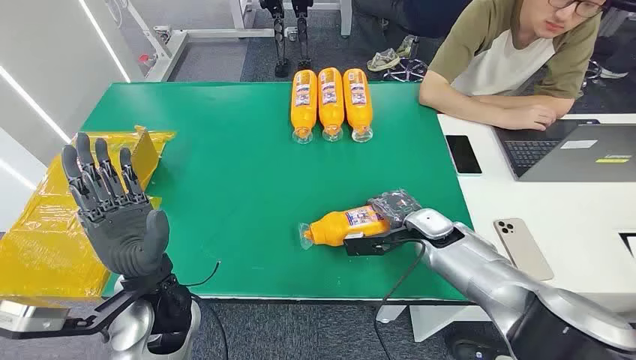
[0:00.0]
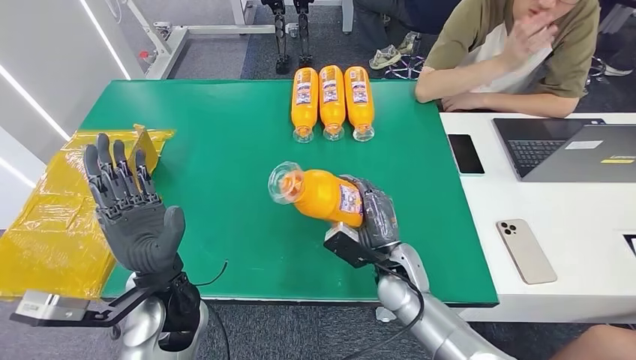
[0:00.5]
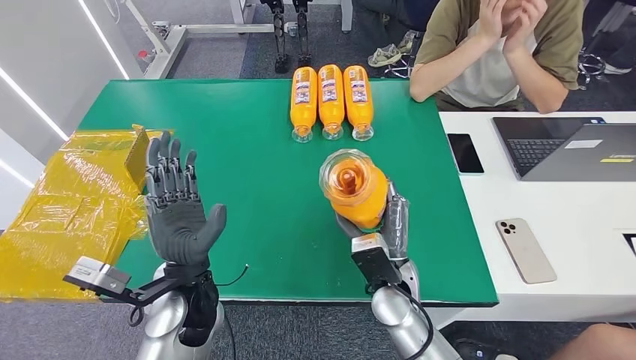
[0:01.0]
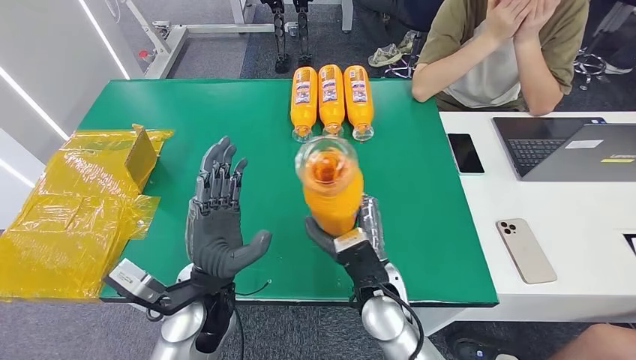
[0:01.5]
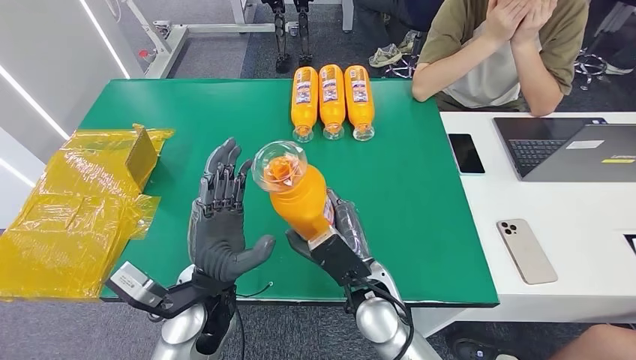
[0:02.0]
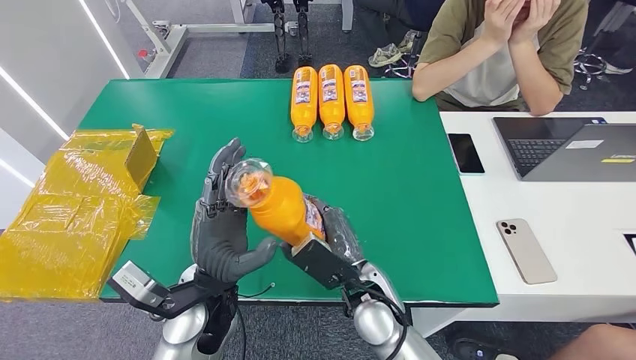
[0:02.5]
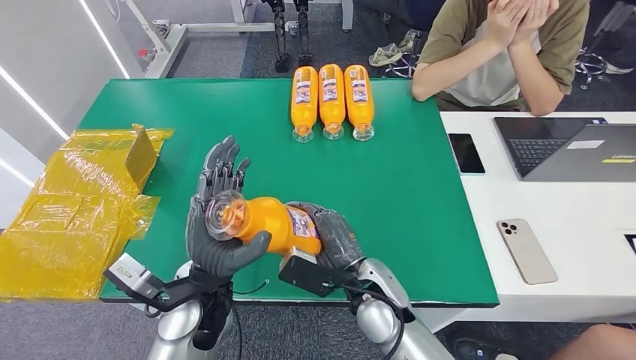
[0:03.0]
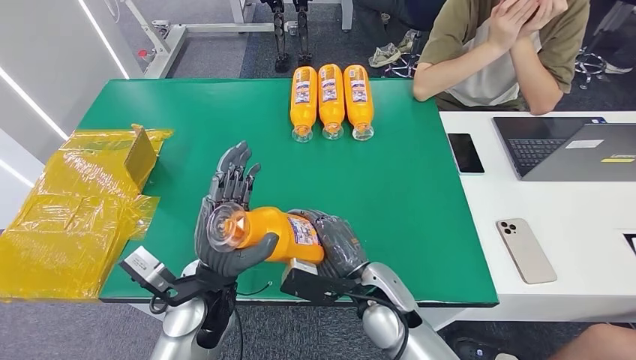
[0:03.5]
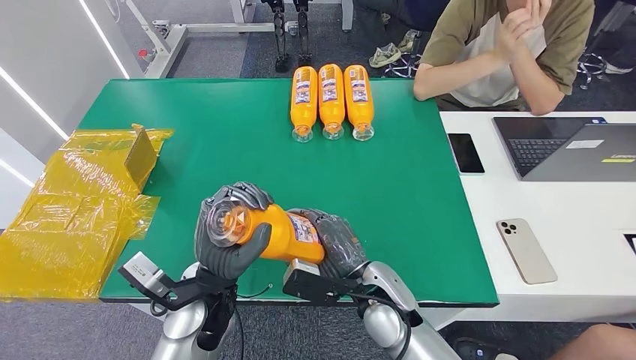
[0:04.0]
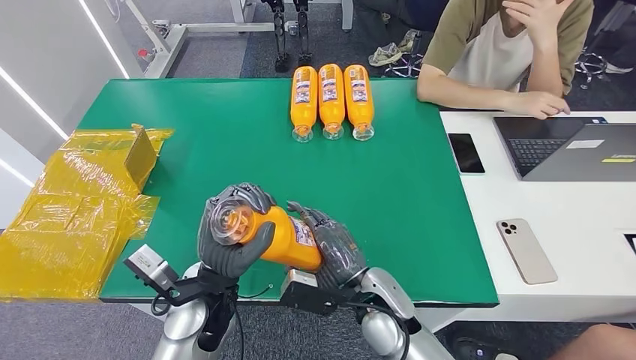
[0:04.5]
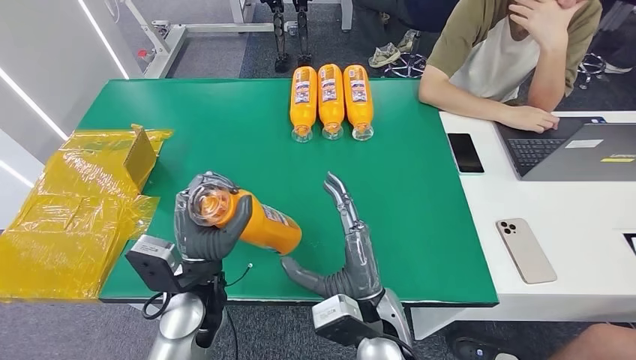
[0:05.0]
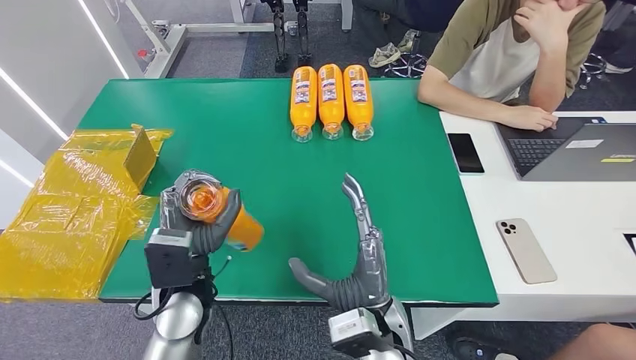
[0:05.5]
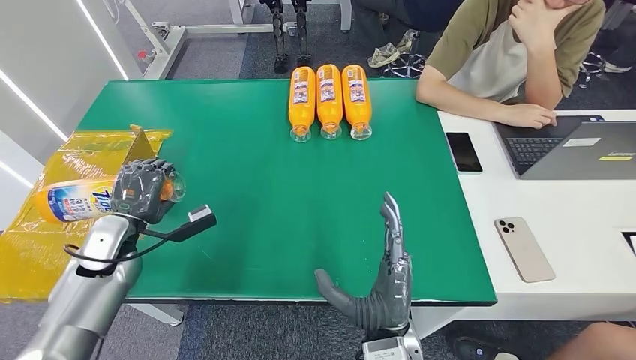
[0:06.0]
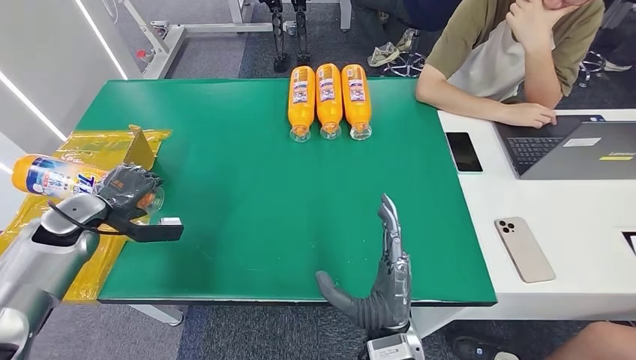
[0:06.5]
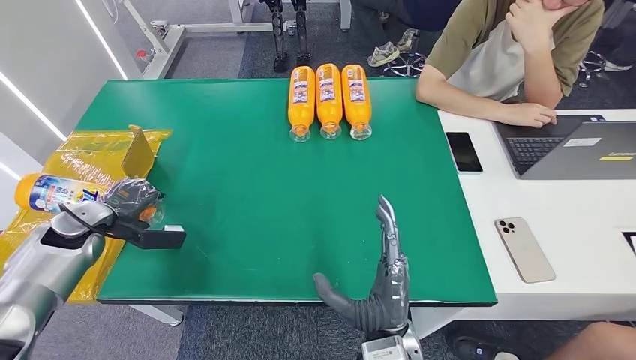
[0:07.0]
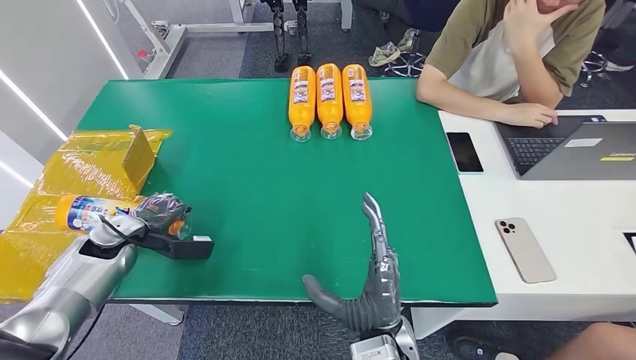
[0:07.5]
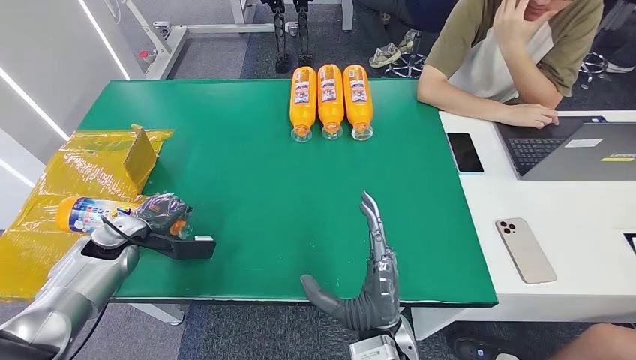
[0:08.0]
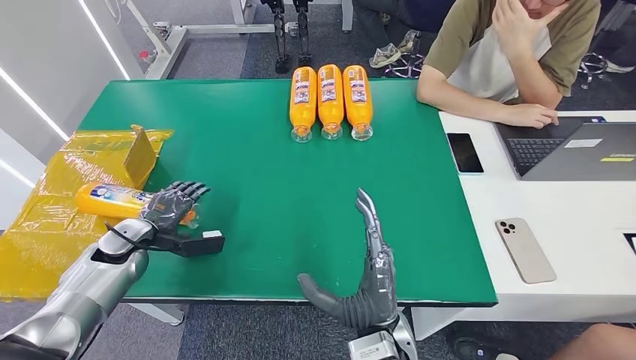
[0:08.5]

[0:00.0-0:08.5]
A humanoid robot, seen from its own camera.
Step, 0:00.0 to 0:02.5: Pick up the bottle from the table.
Step, 0:03.0 to 0:08.5: Turn the bottle to the front side.
0:06.5 to 0:08.5: The left hand heads to the right and downward, covering some 10 cm.
